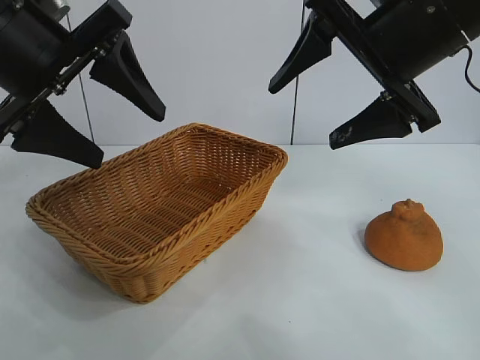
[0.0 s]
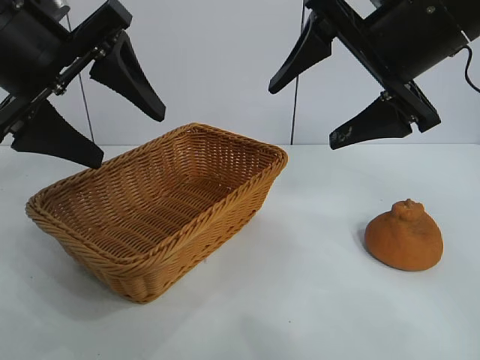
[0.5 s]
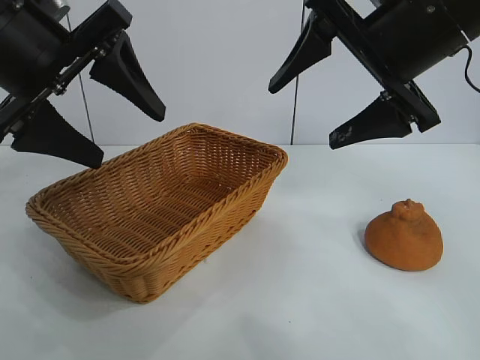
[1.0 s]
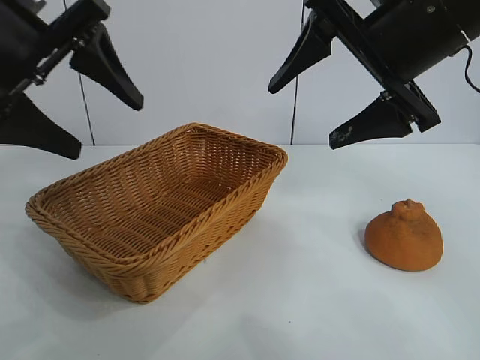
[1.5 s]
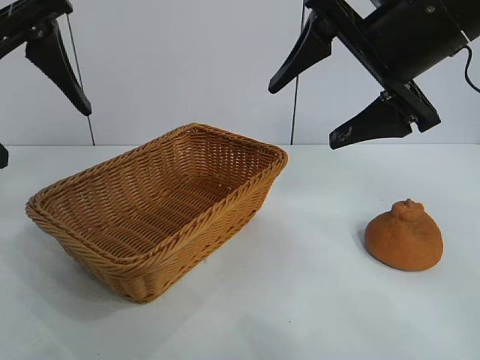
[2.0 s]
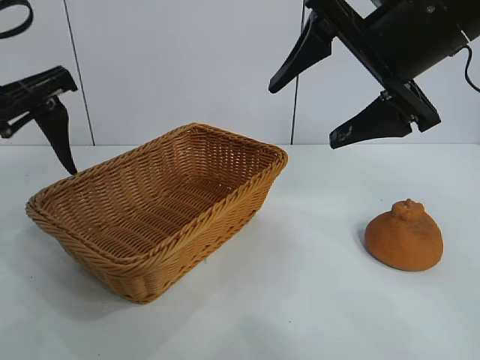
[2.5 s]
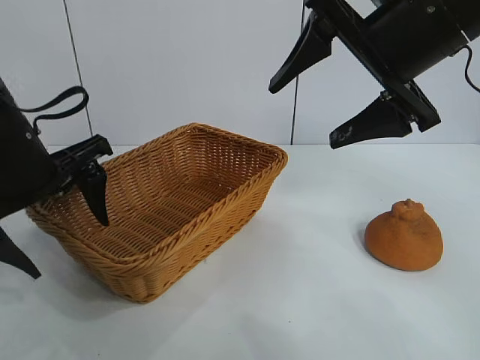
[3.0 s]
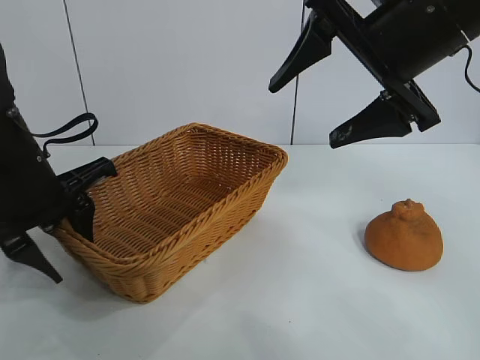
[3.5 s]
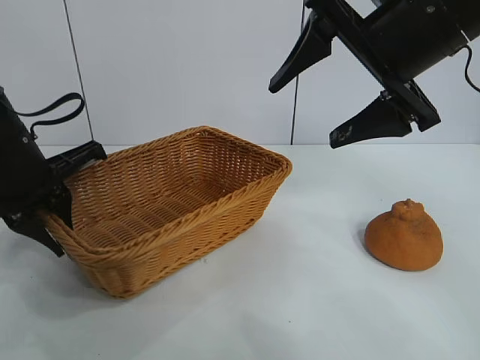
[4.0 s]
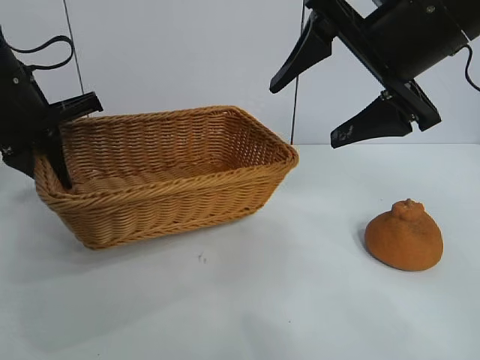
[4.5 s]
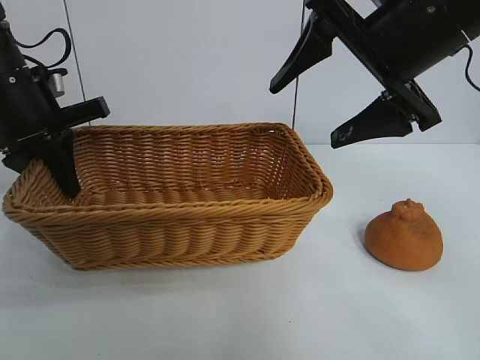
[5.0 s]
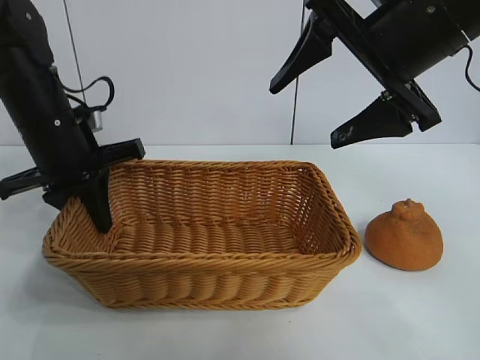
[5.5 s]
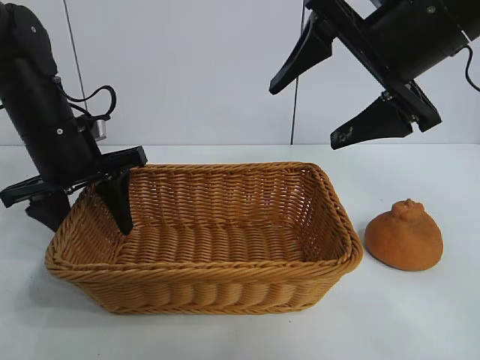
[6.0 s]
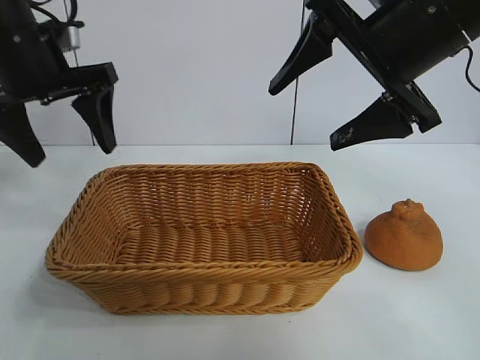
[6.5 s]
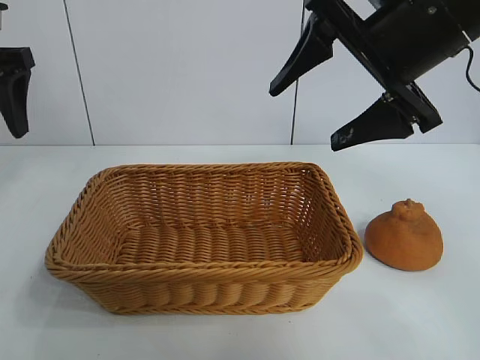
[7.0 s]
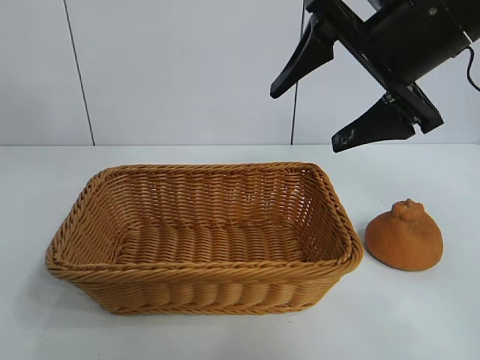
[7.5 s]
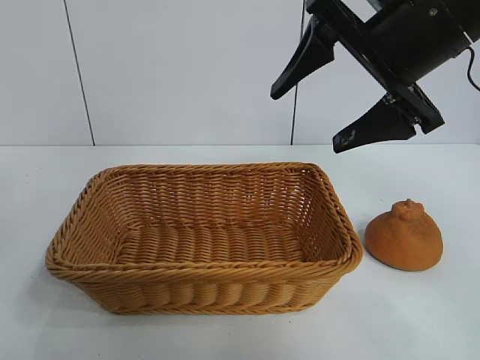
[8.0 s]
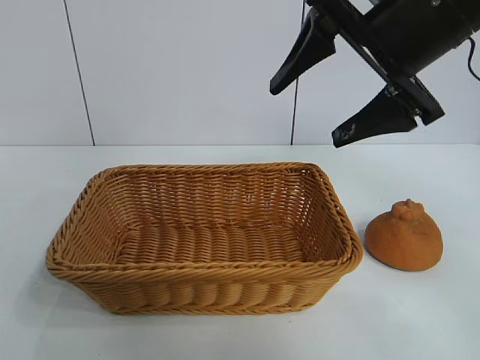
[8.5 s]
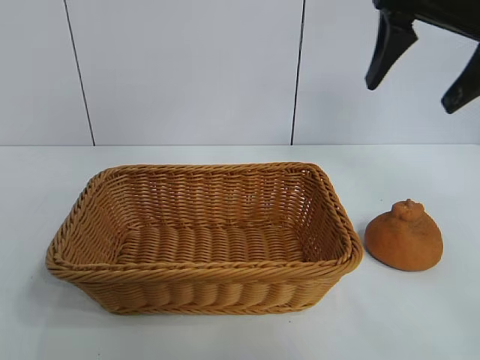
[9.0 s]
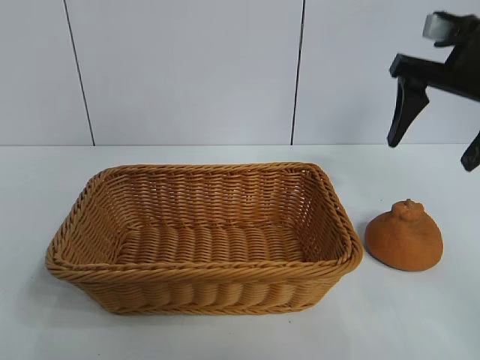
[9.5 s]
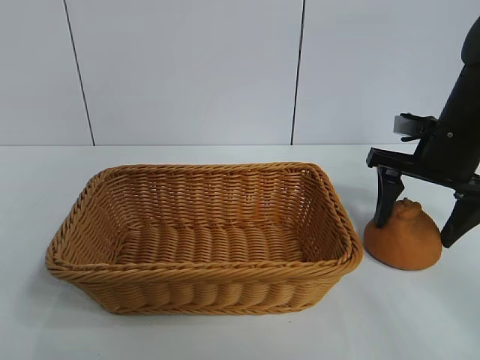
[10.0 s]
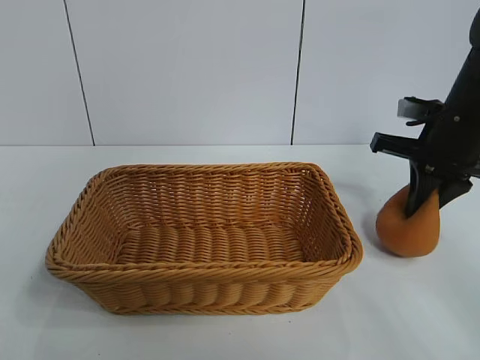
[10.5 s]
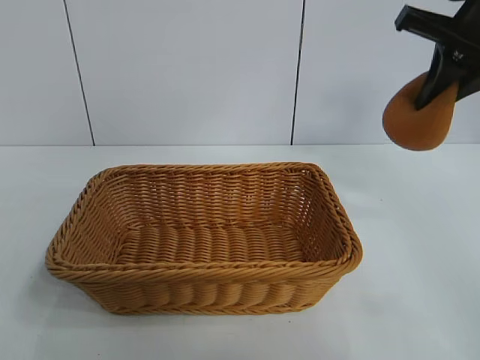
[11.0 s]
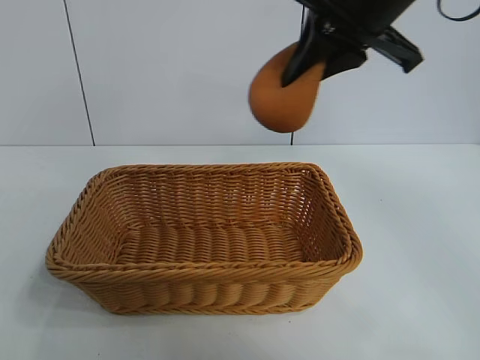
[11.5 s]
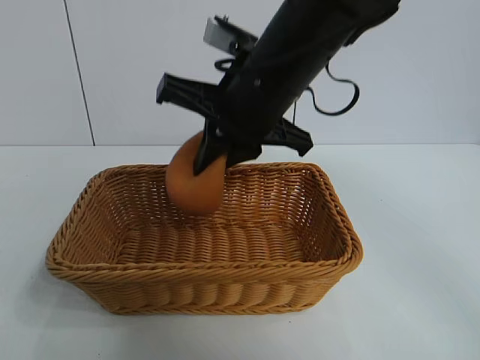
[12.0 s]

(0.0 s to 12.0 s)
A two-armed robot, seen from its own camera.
Task of the whole recording: pick up the orange and put it into the basket.
Step, 1.0 s - 3.5 s: Grasp the basket with left gripper.
Step, 4.0 s - 6.0 s: Place the basket in the center of view with left gripper.
Step, 6.5 s - 10.0 s: Grasp the orange with right gripper.

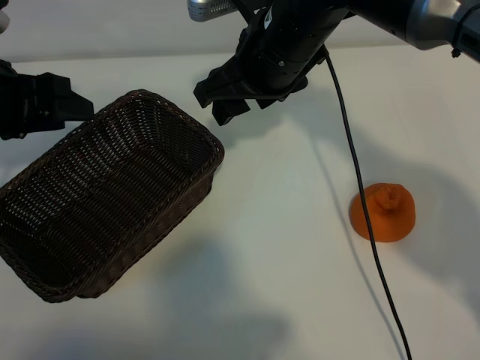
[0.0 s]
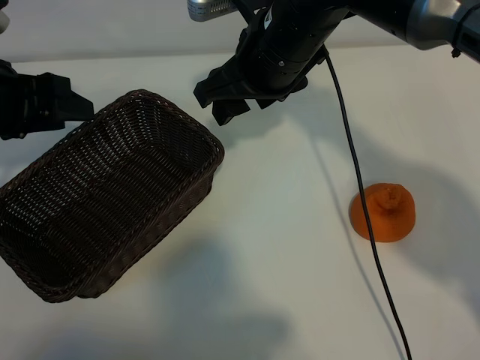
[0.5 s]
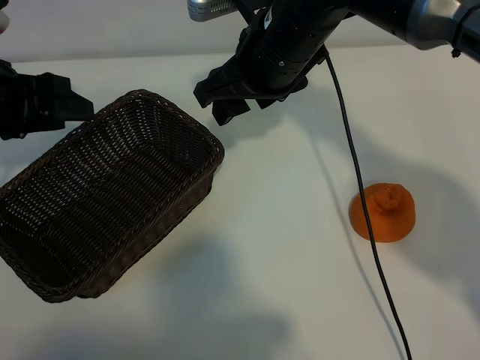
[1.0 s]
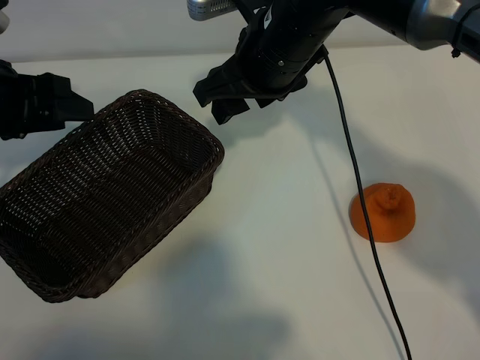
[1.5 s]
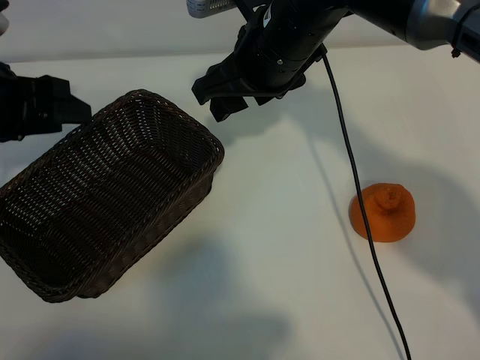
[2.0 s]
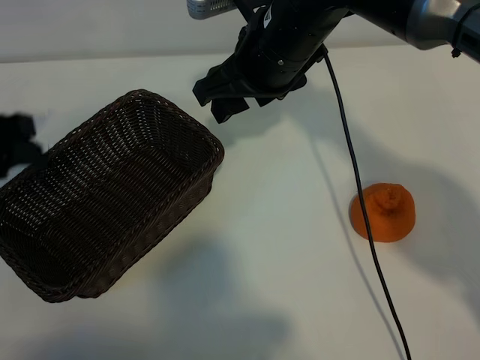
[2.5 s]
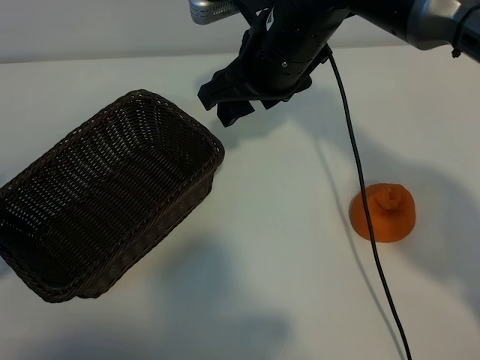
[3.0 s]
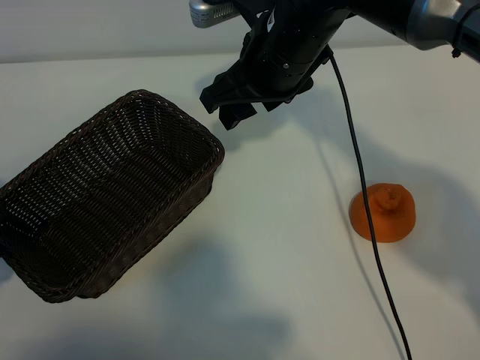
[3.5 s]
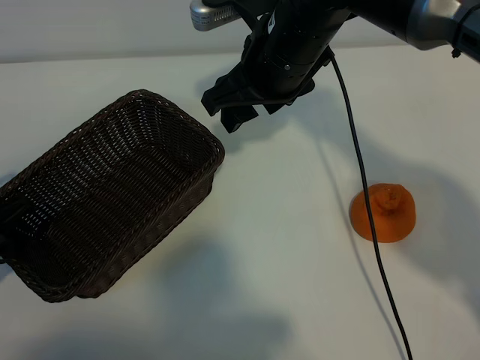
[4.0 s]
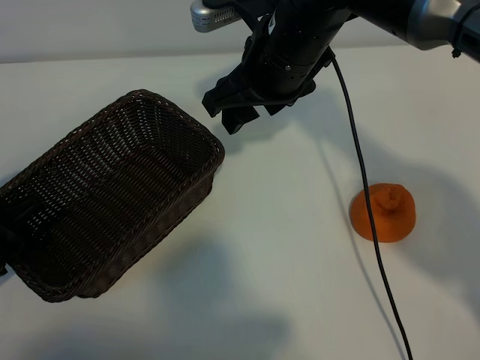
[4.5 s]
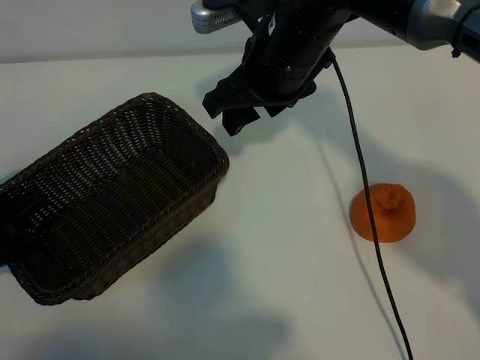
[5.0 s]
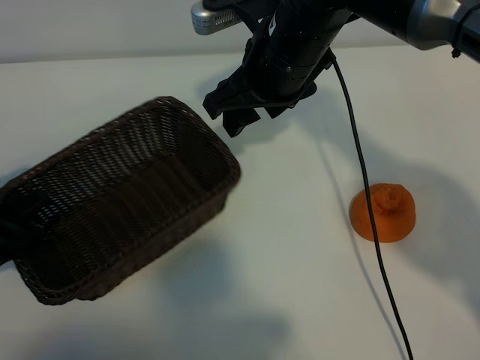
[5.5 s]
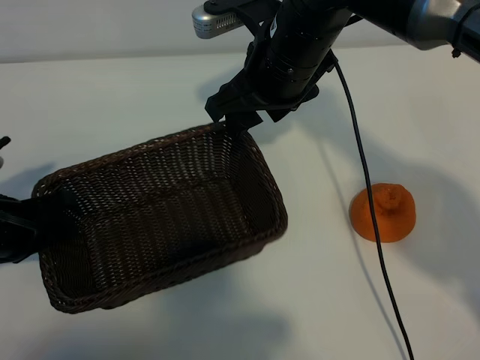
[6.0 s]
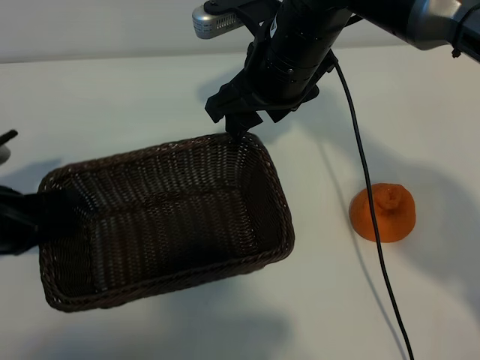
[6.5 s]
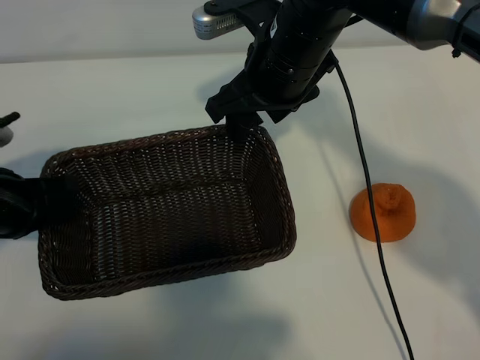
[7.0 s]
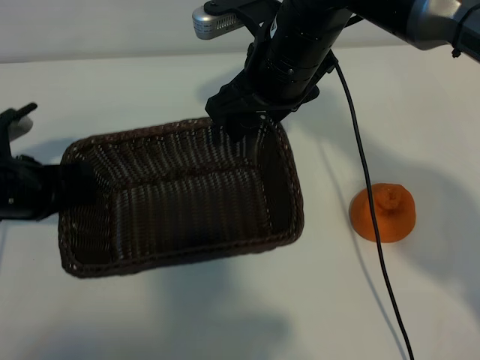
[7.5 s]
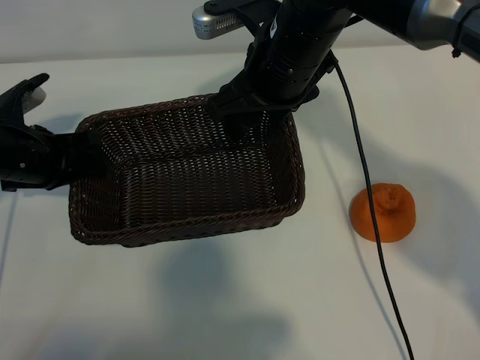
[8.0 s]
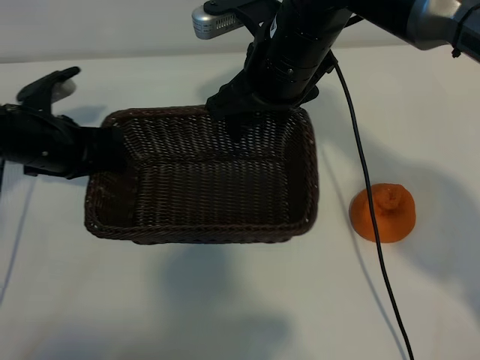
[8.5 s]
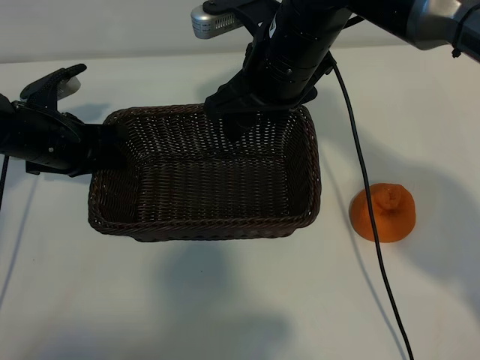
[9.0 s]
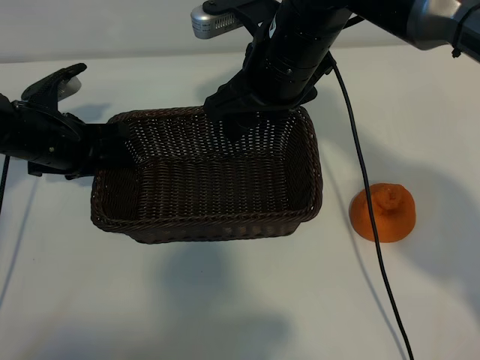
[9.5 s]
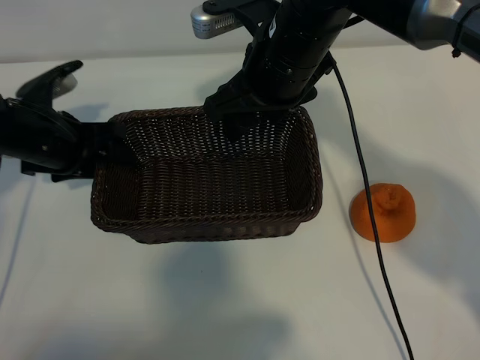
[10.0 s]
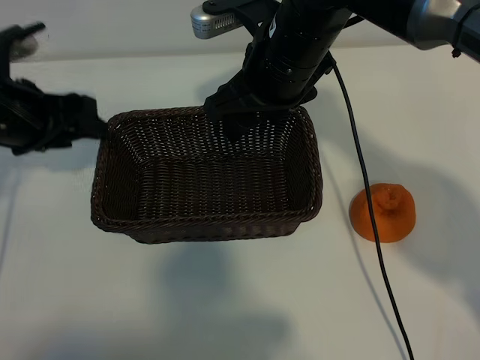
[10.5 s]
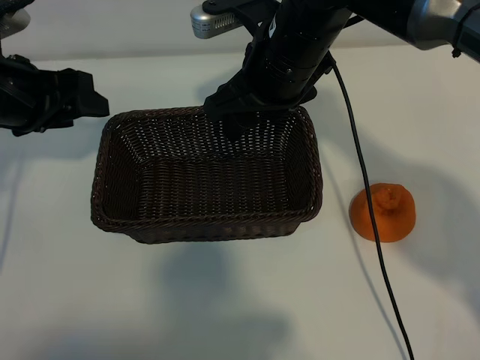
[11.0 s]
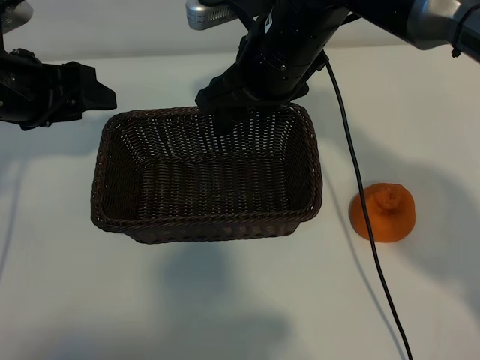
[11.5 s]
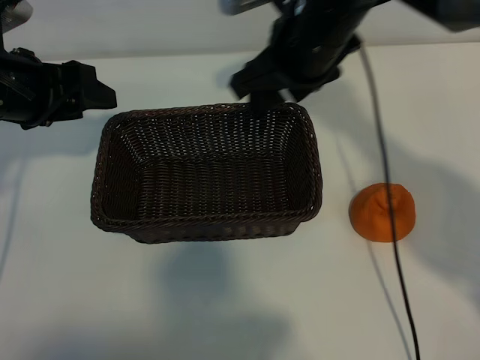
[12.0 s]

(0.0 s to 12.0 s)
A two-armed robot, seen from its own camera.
Task of the whole recording: pick up the orange and put it into the basket.
Step, 1.5 s - 5.0 s: Grasp the basket with left gripper.
Step, 5.5 s - 9.0 s: Place the basket in the center of view with left gripper.

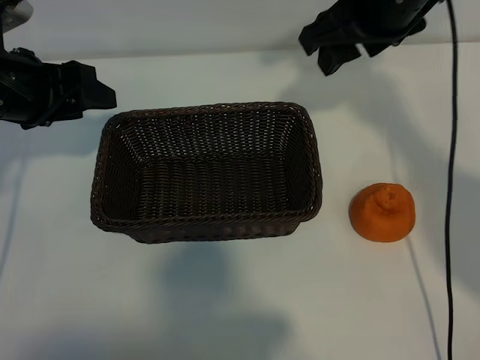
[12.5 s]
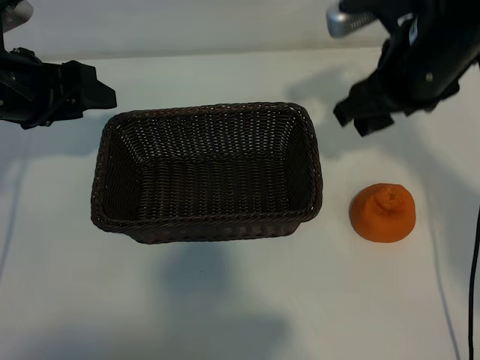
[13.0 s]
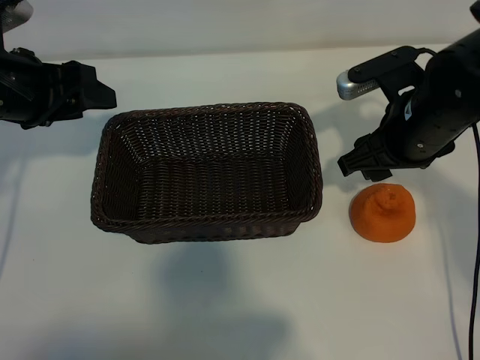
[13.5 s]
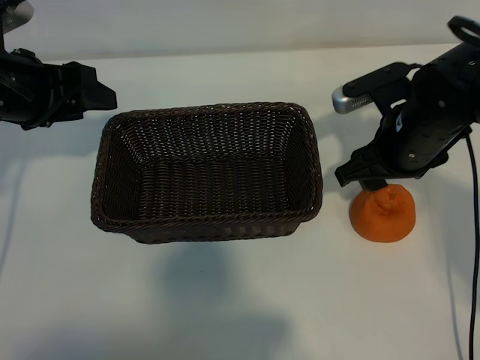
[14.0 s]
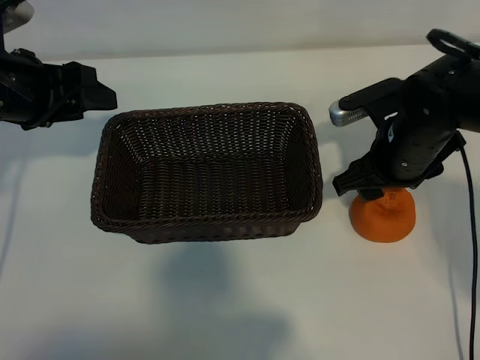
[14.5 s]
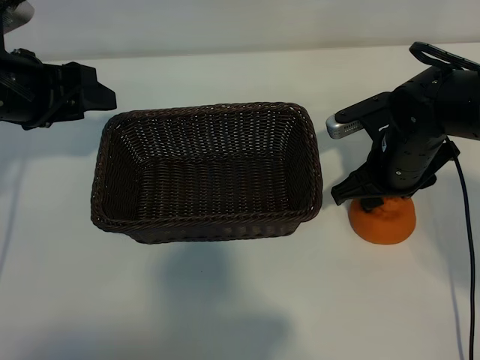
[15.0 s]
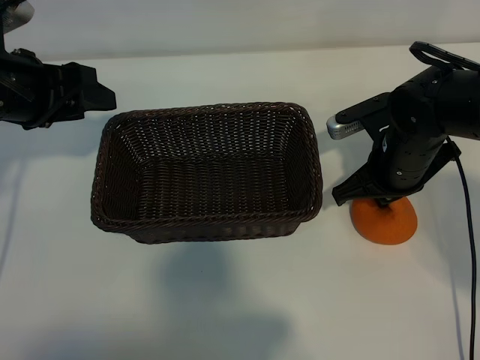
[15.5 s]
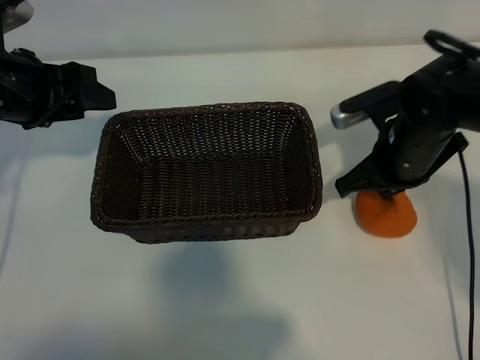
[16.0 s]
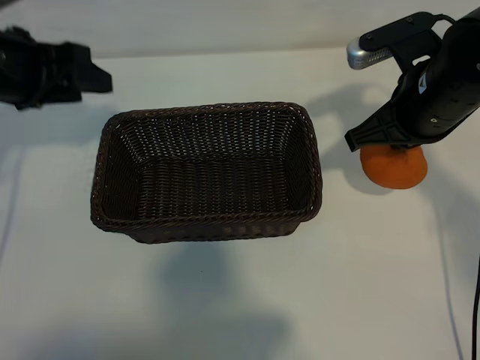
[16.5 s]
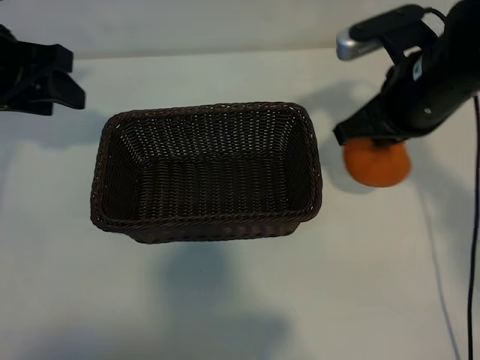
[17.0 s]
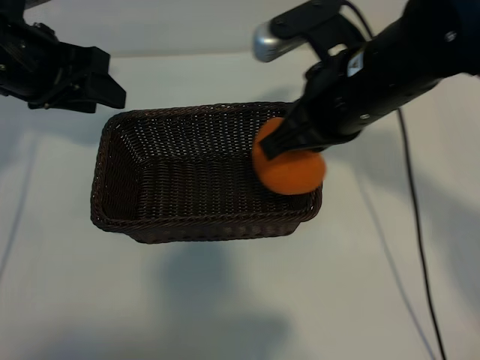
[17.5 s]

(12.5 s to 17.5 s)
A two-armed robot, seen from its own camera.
Task of the whole recording: pick up the orange and put it into the basket.
Step, 12.5 s - 15.0 s: Grasp the orange with right gripper.
